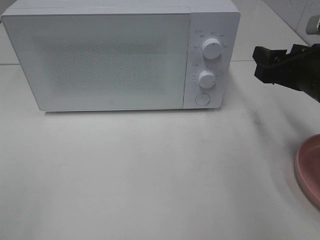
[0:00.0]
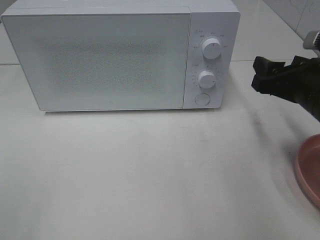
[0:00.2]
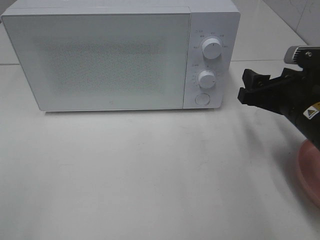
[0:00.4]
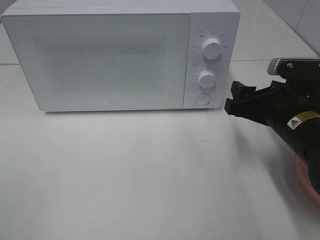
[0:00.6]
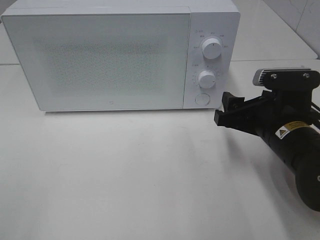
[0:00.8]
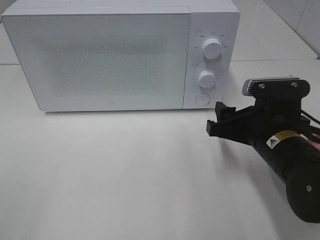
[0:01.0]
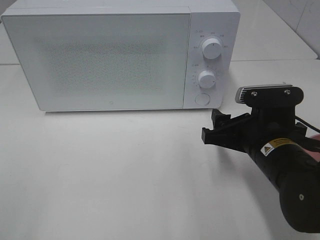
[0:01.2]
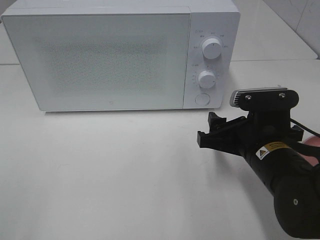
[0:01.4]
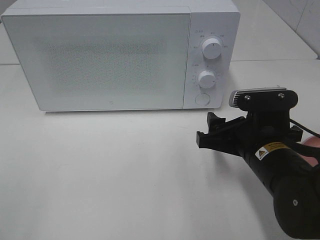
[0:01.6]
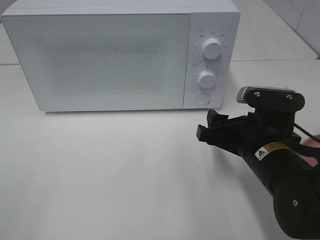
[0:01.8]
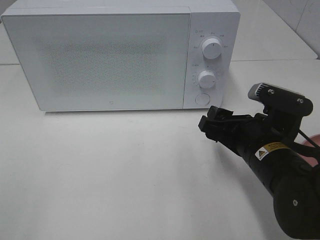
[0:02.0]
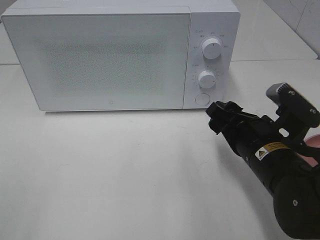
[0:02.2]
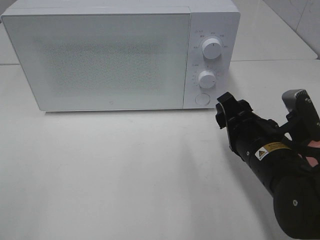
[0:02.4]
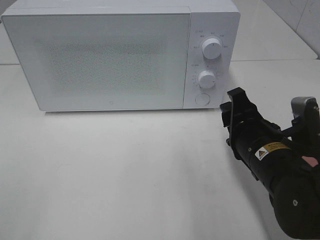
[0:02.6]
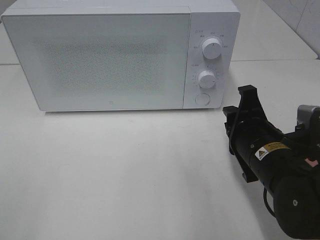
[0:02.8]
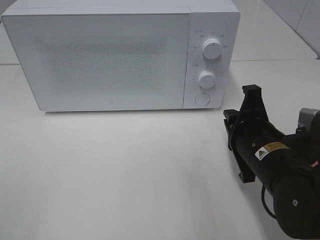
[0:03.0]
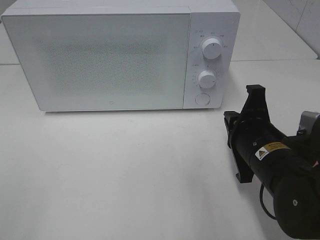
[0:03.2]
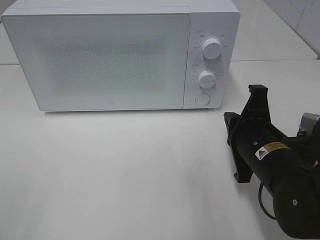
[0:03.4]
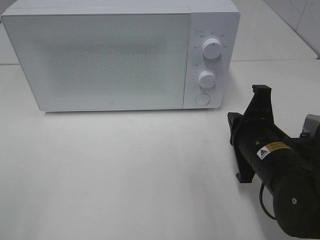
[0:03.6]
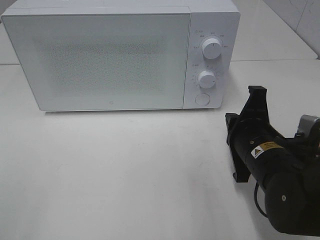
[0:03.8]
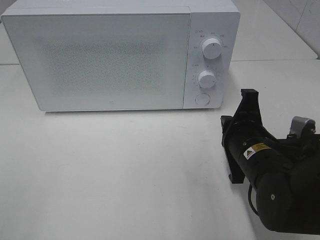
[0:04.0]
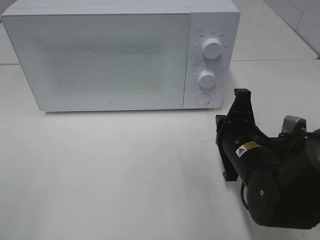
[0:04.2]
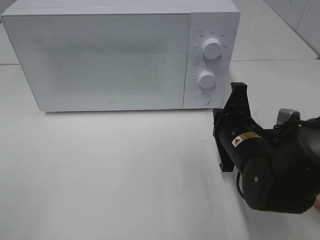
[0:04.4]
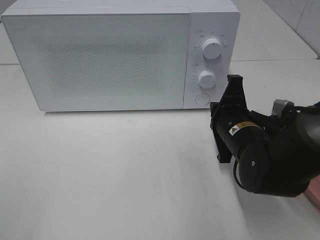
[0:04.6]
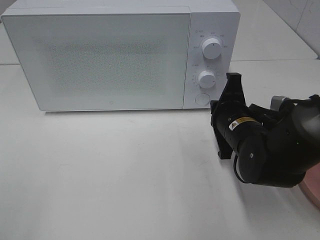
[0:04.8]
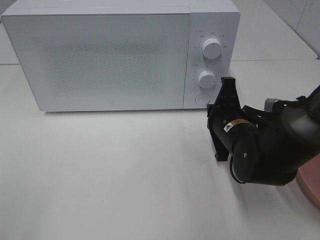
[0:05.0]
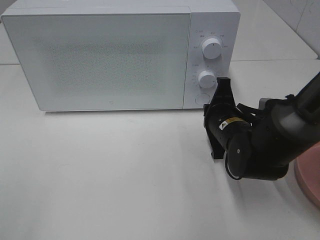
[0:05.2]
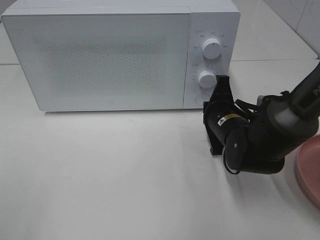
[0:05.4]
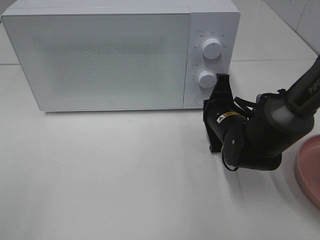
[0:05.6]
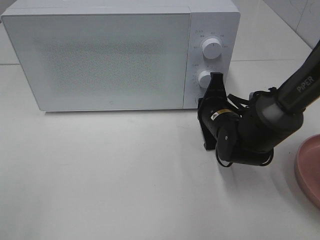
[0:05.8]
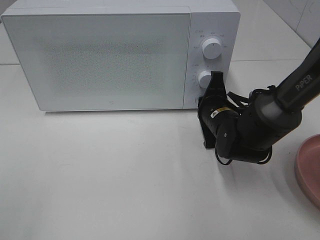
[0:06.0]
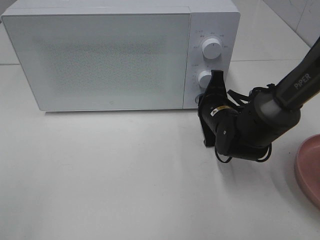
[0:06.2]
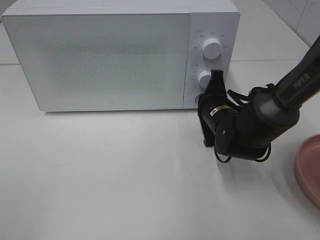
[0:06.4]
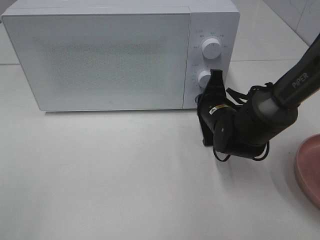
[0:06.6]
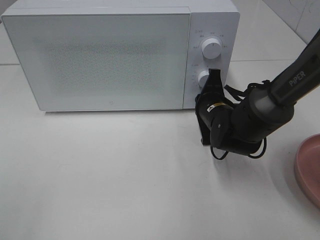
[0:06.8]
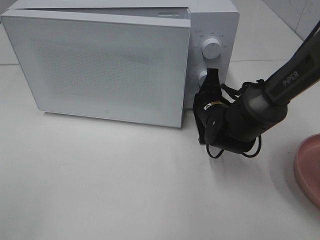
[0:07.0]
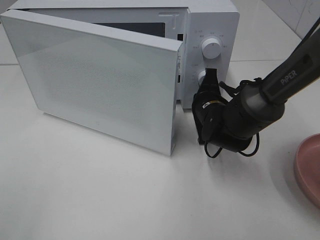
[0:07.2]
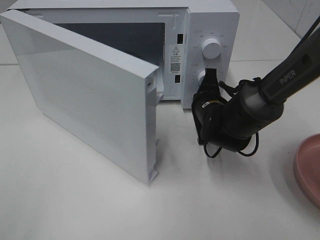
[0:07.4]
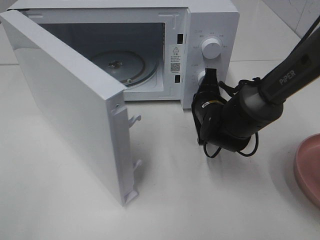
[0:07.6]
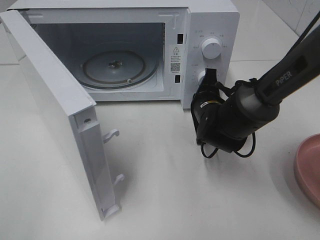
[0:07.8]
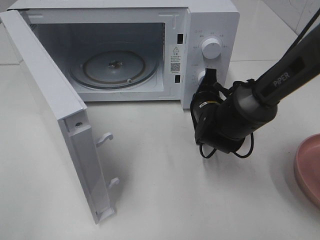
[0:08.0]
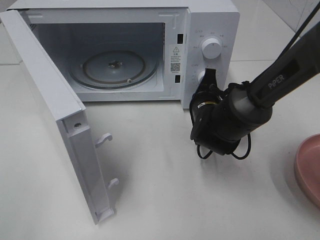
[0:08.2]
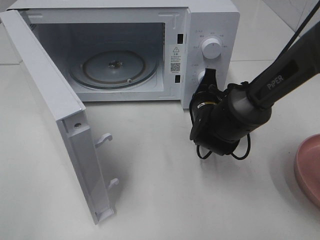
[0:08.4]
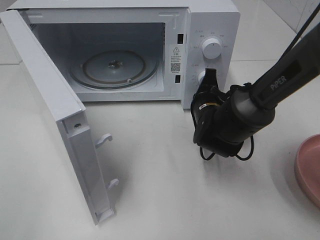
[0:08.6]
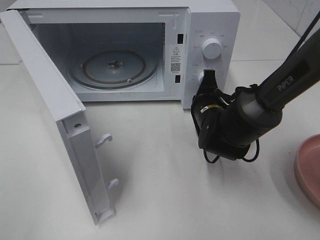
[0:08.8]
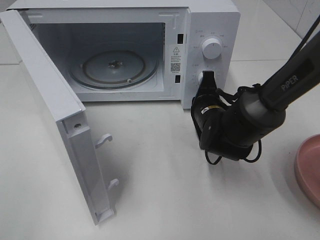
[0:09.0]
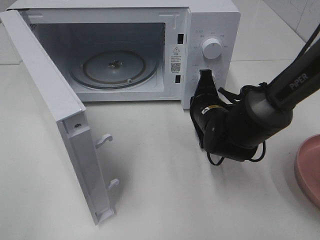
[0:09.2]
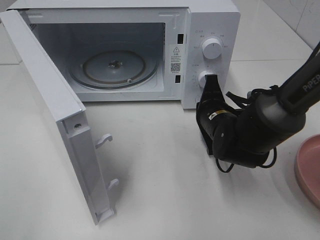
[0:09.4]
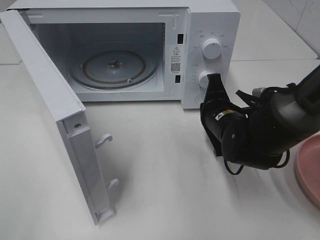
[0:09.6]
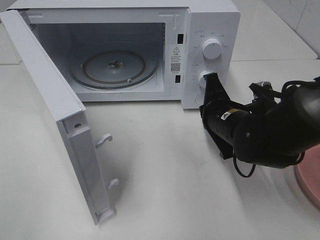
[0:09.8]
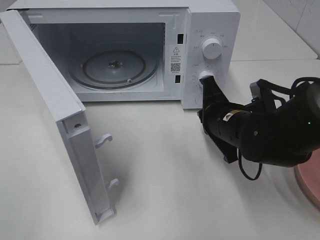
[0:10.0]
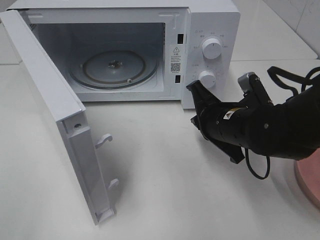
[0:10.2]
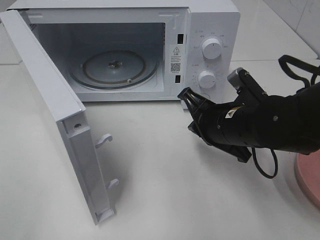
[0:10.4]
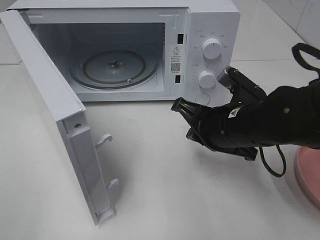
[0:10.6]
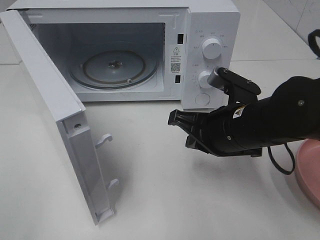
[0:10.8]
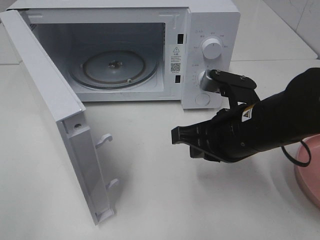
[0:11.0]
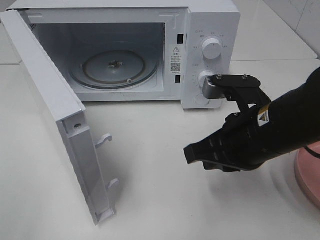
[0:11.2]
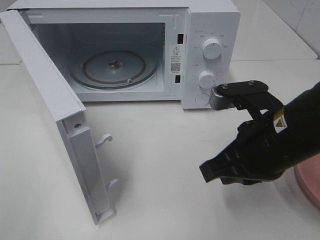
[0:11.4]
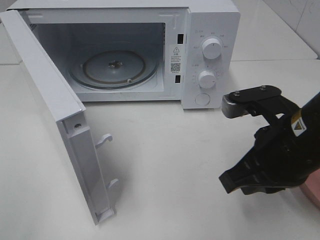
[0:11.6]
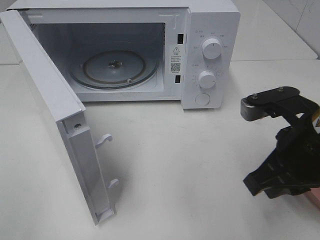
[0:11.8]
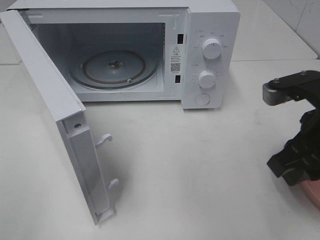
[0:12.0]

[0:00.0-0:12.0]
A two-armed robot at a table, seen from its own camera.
Task of the whole recording: Heat the burger.
Step, 0:00.0 to 0:09.6: Right hand: press the switch.
0:00.0 to 0:01.6: The right gripper goes roughly 15 cm to the left, downward and backward.
0:01.6 to 0:03.0: The right gripper closes.
0:03.0 to 0:04.4: The grippers move only a little.
0:04.4 to 0:06.0: The right gripper heads forward, covering approximately 10 cm.
0:09.0 to 0:10.4: The right gripper shifts roughly 10 cm backward and upward.
0:10.4 to 0:12.0: The right gripper heads upward, to the right and backward, covering approximately 15 cm, and opens its fingers.

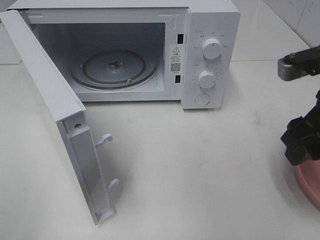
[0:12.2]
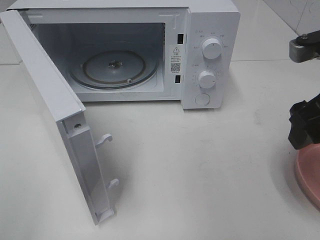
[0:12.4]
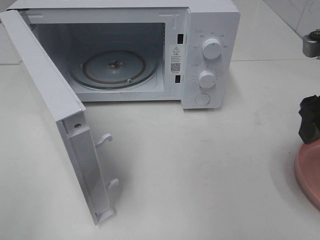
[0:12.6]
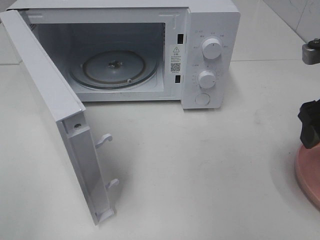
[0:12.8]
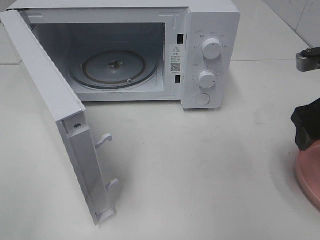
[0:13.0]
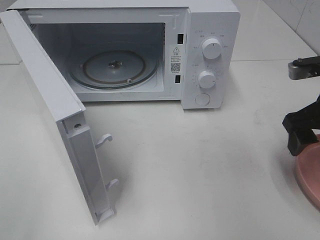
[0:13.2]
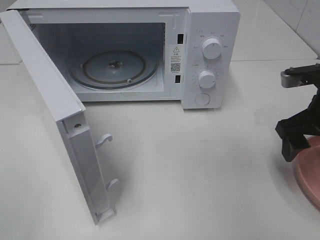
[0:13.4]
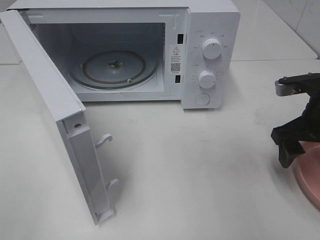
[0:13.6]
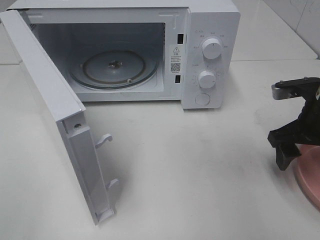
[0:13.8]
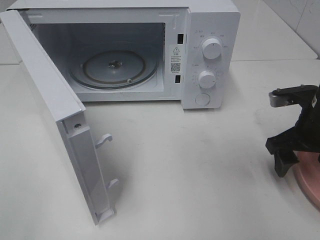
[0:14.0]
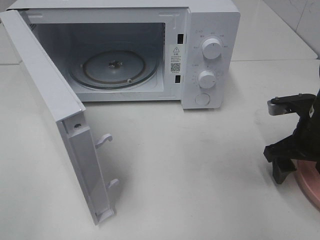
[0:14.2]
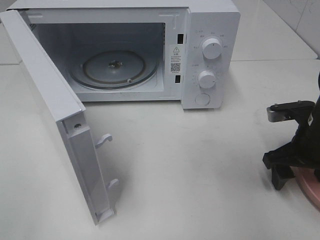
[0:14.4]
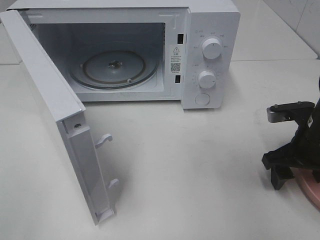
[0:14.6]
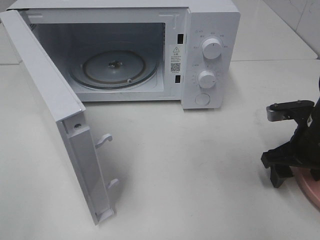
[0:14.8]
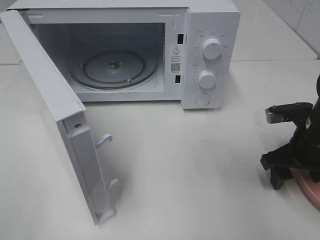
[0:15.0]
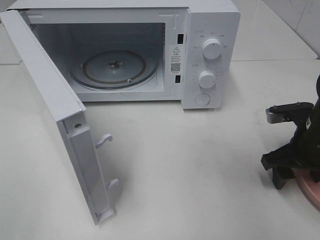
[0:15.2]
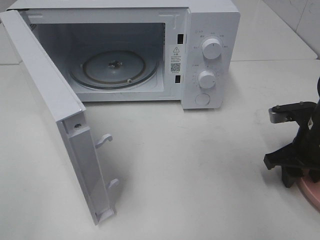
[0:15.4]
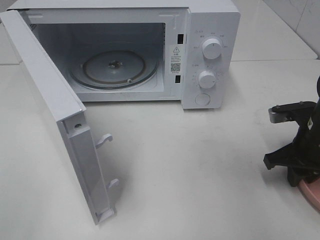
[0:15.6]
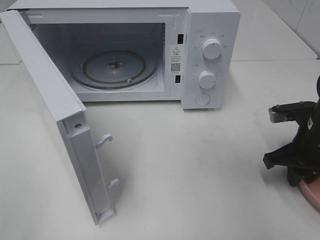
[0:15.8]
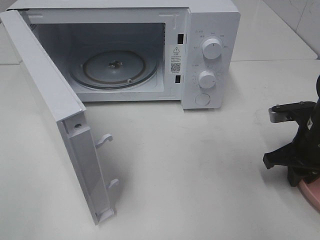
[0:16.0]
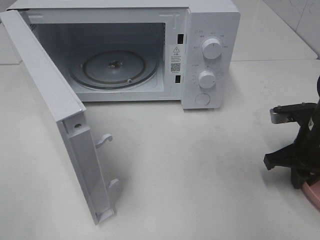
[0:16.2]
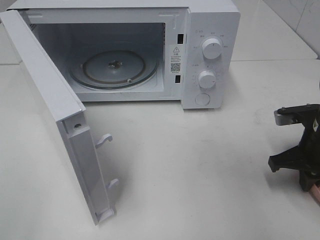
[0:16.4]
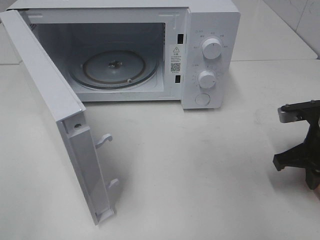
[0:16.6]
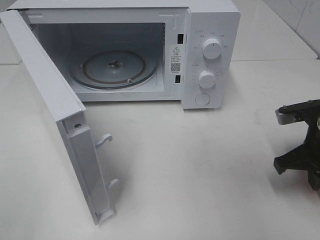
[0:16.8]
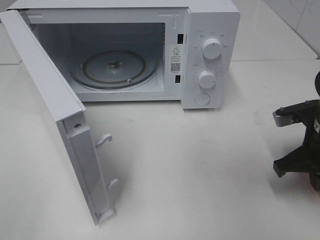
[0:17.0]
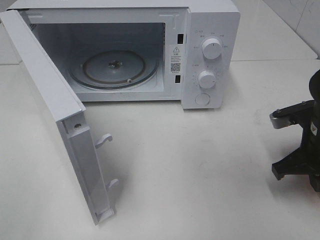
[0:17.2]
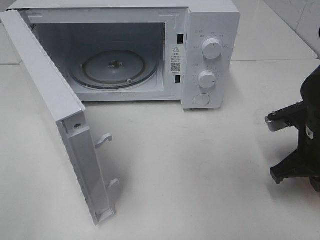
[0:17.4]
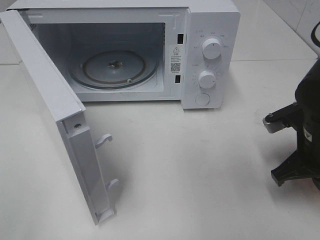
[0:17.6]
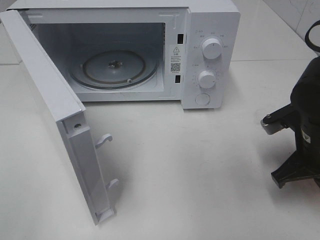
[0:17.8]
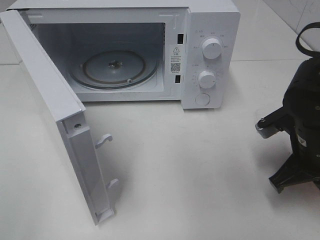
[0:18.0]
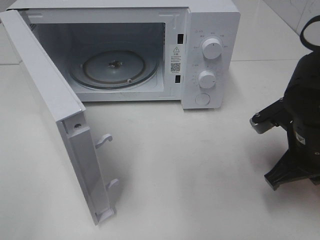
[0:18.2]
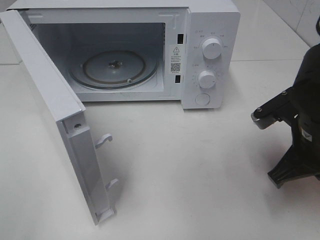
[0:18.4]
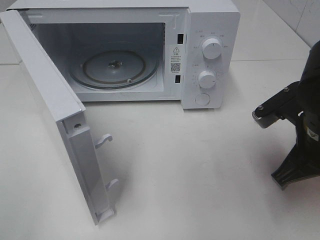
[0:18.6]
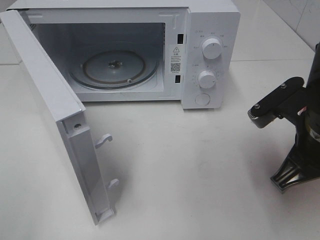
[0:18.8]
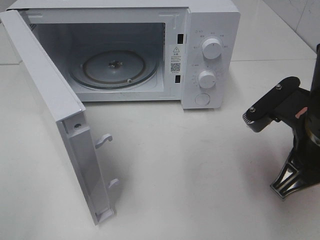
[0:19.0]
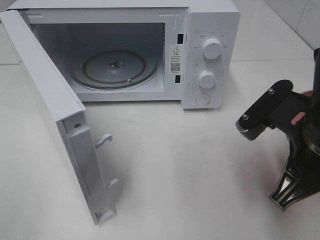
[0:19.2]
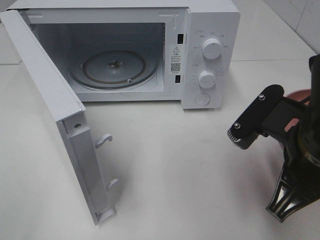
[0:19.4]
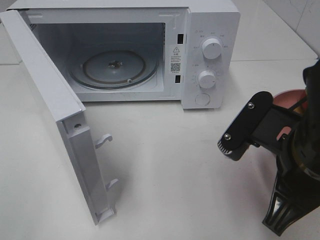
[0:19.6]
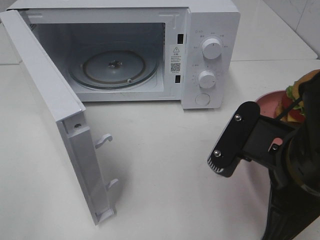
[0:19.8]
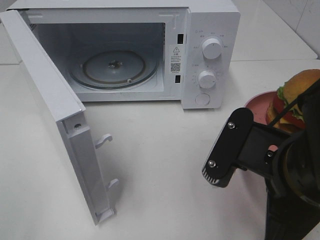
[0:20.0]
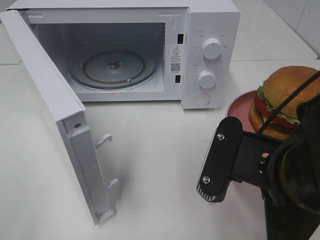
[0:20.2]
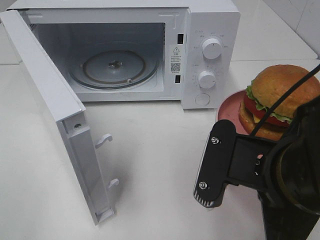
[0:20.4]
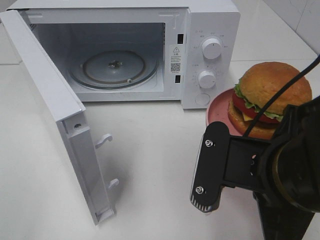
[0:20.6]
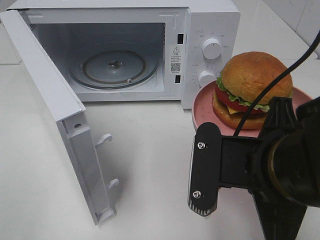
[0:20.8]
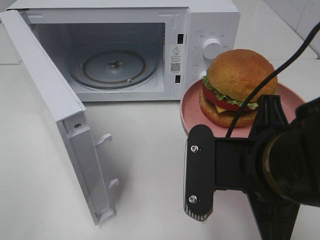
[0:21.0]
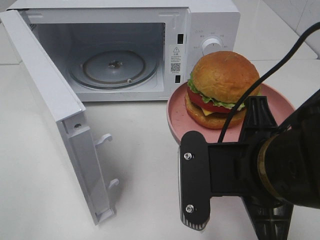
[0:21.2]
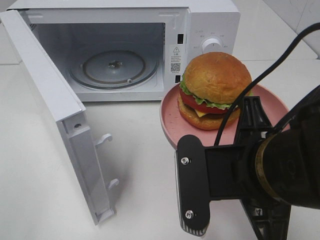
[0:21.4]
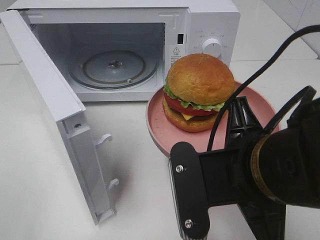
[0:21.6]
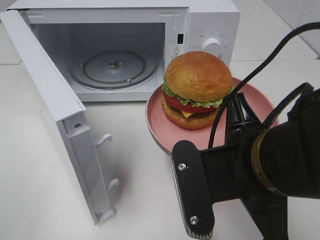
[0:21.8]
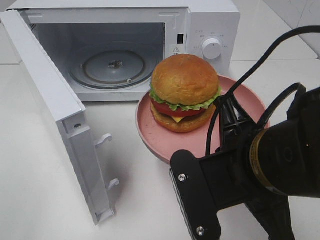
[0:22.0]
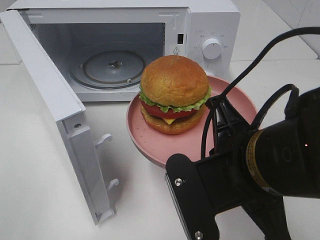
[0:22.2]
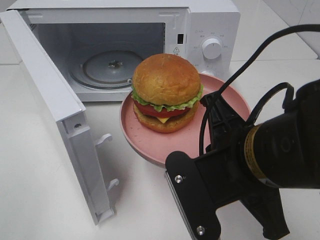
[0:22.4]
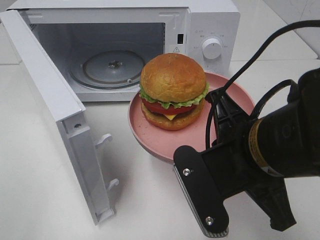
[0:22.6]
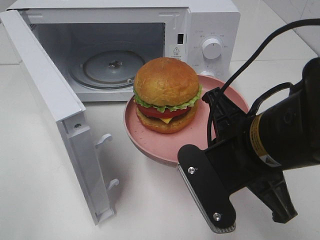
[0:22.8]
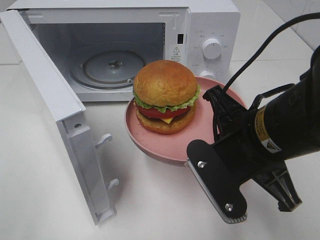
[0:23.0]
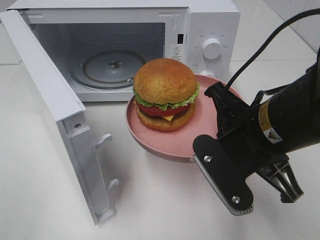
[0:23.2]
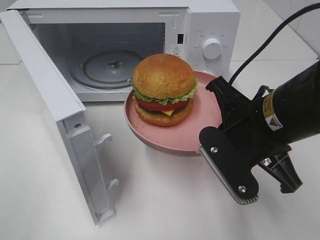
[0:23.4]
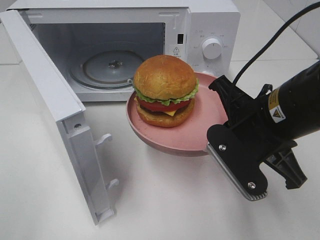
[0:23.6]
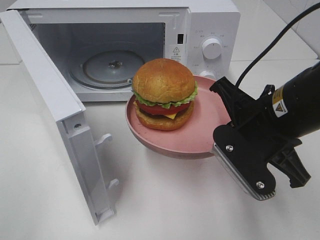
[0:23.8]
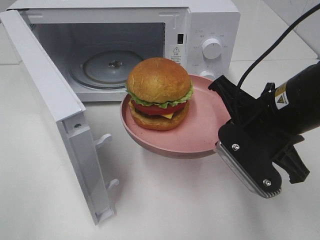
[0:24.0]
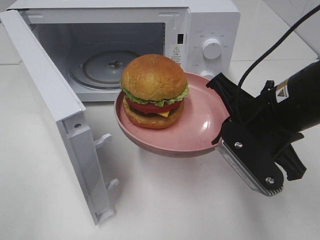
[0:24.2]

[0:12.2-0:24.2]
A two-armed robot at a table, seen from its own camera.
Task of the whole recording: Heat the burger.
Step, 0:12.2 to 0:17.0: Right hand: grab the plate with the hamburger.
0:12.2 to 0:13.8: The right gripper shifts about 10 cm downward and forward.
0:13.8 to 0:15.2: The right gripper shifts by some 5 cm.
0:15.2 to 0:16.6: The right gripper closes.
0:16.6 to 0:18.2: The right gripper shifts roughly 5 cm to the left.
0:18.2 to 0:19.8: The right gripper goes roughly 15 cm backward, to the left and upward.
0:22.6 to 0:24.2: The right gripper moves forward, about 5 cm.
